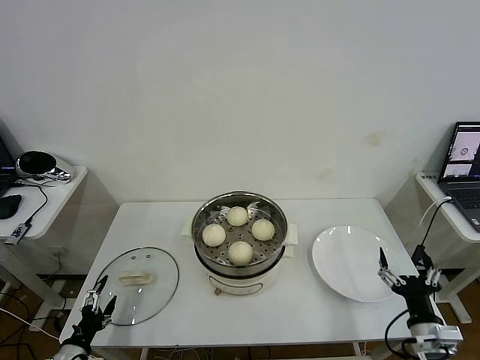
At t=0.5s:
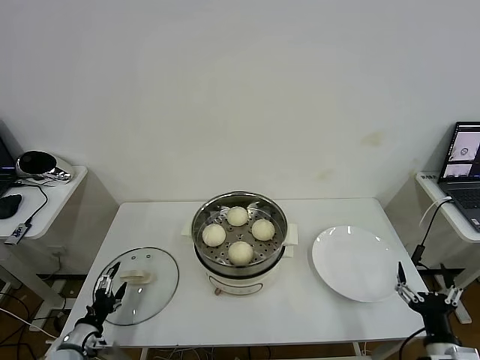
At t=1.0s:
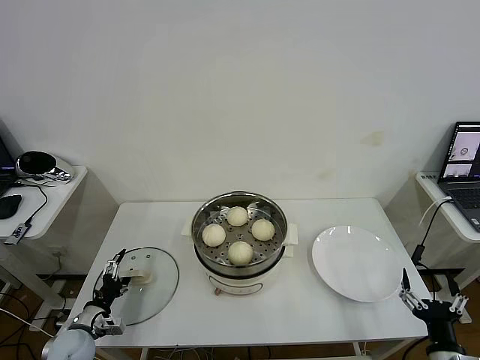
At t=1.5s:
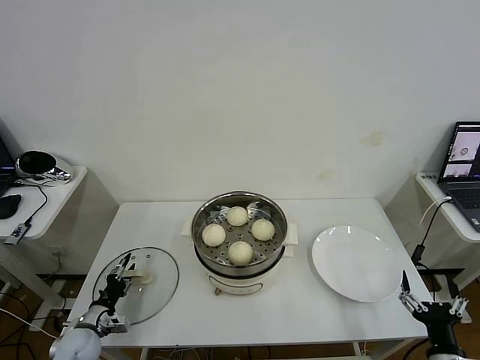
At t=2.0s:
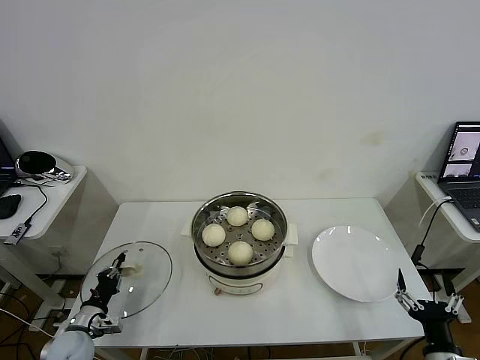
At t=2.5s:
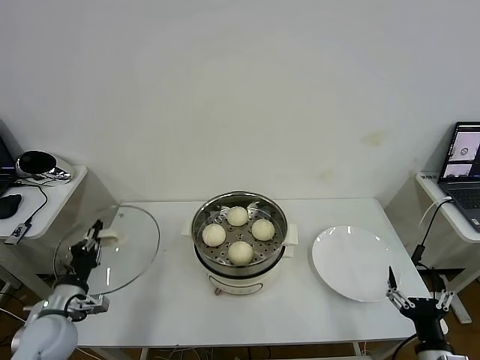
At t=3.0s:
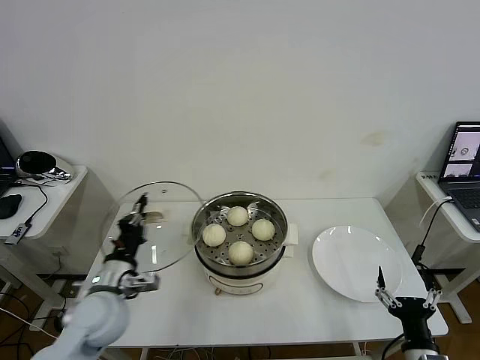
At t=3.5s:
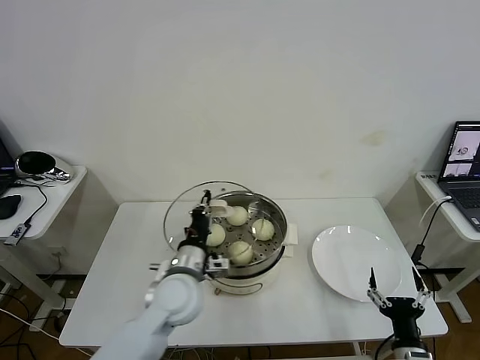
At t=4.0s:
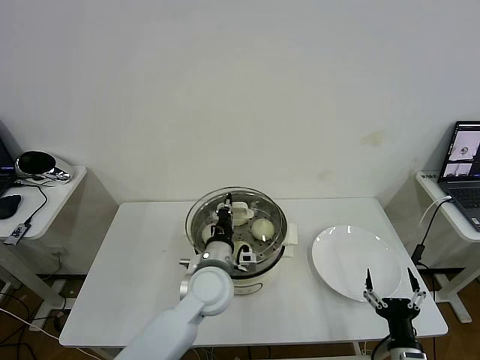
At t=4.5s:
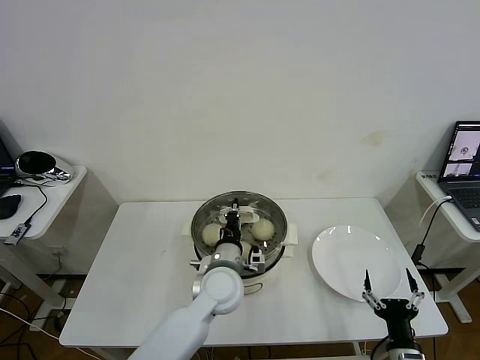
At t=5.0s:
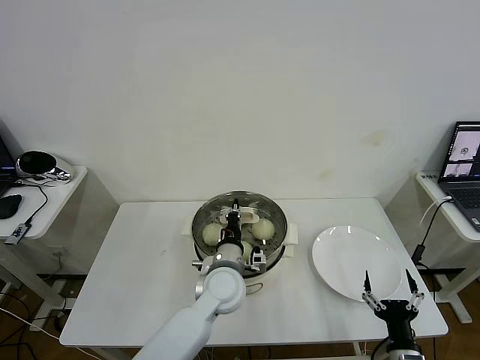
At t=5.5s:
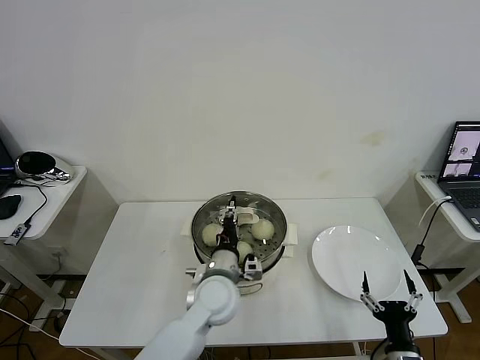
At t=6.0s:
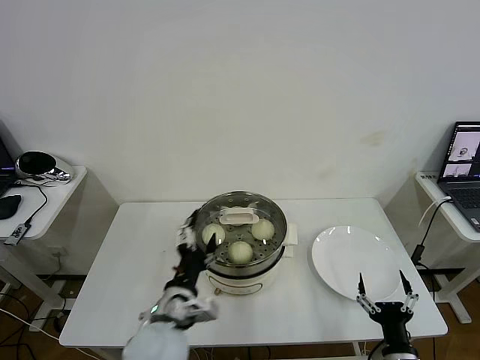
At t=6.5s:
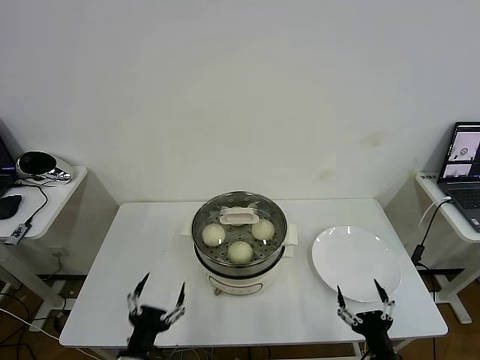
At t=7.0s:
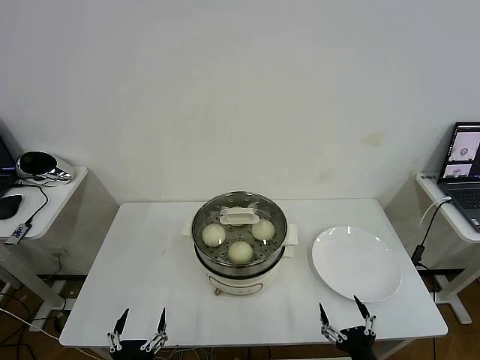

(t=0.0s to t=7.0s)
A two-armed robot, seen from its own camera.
Task of the whole recording: take steamed baozi put them in steamer then cover it.
Step, t=0.0s - t=2.0s: Grasp the pot lid with left gripper.
Step, t=2.5s - t=5.5s: Place the pot lid on the steamer with left gripper.
t=0.0s - t=2.0s: The right gripper goes roughly 5 cm backward. Meanwhile the left gripper travels forward by about 10 cm, and closes its fingers.
t=2.0s - t=3.5s: The left gripper goes about 30 cm to the right and upward, while the right gripper moves some 5 cm.
t=3.5s - t=5.0s: The left gripper travels to the right by approximately 10 cm.
t=5.0s - t=7.0s: The right gripper shifts by some 5 cm; the left gripper travels backward and to the left by some 35 cm, and opens up.
